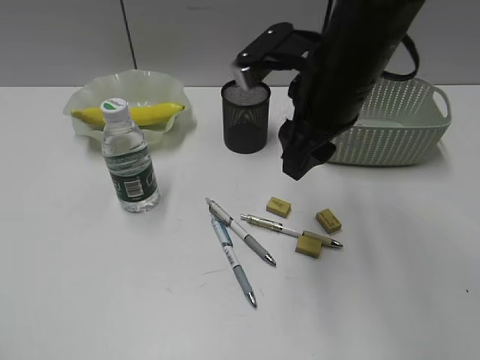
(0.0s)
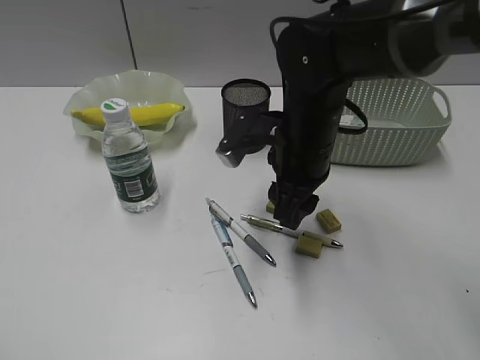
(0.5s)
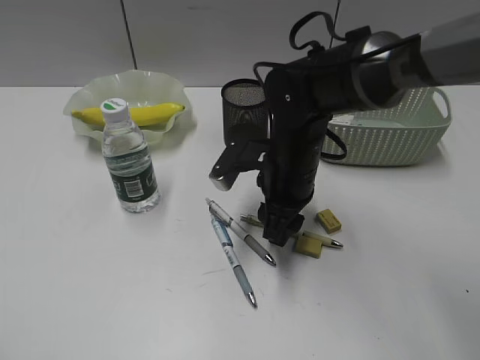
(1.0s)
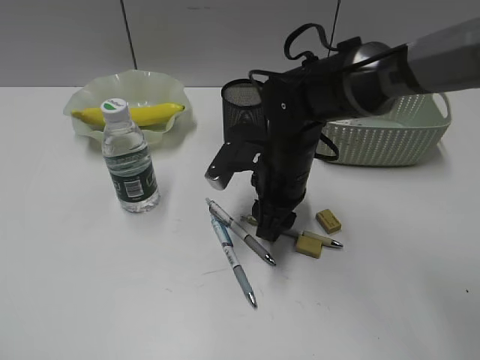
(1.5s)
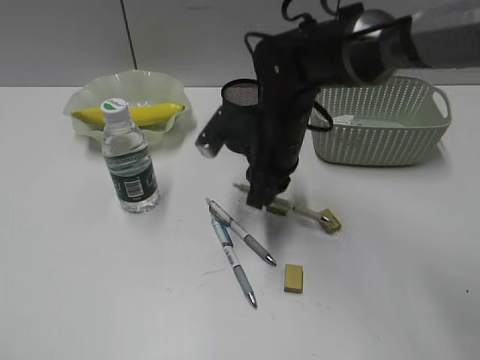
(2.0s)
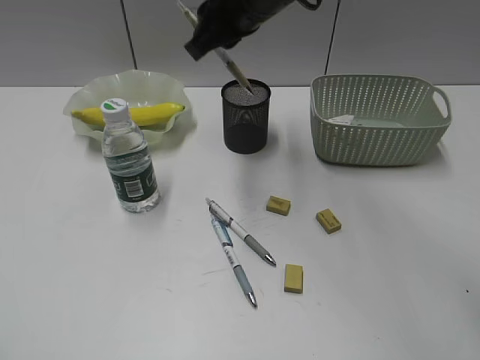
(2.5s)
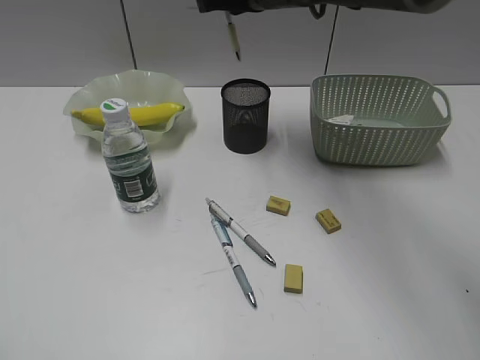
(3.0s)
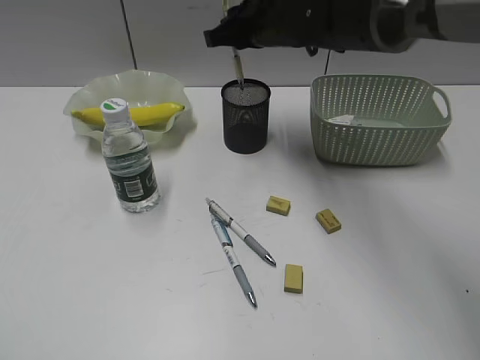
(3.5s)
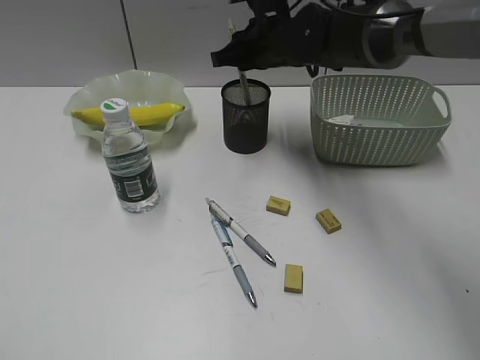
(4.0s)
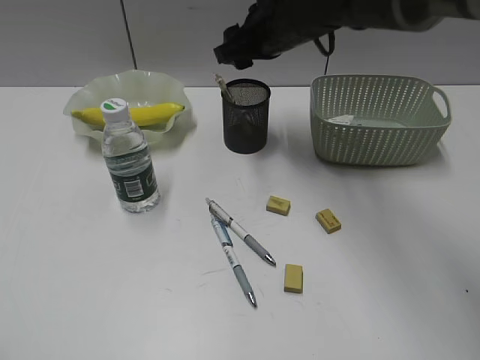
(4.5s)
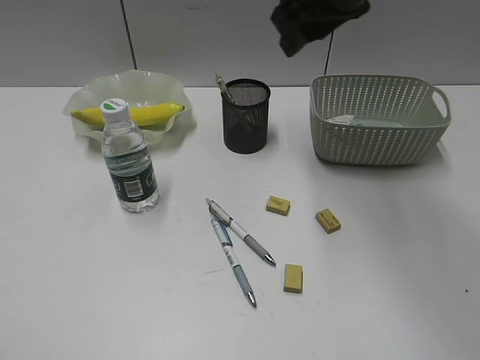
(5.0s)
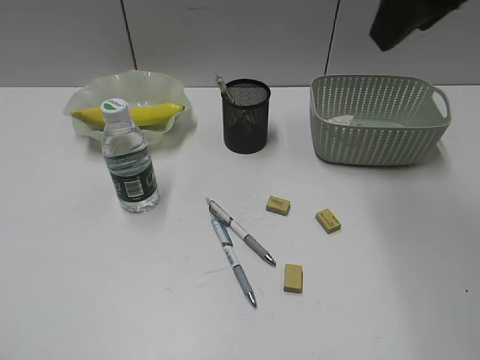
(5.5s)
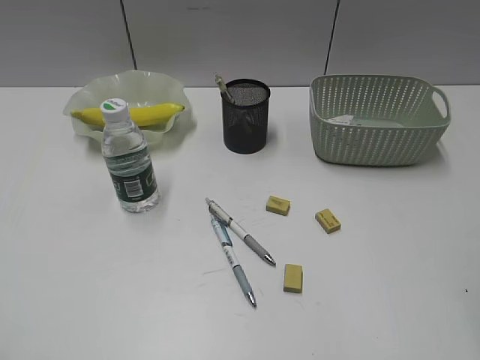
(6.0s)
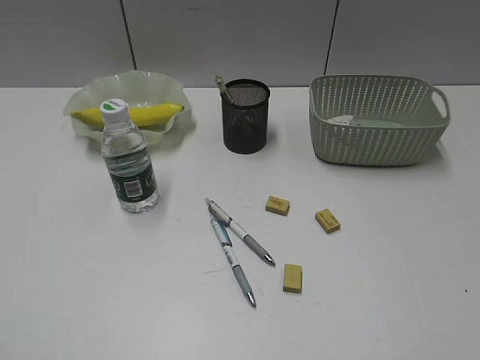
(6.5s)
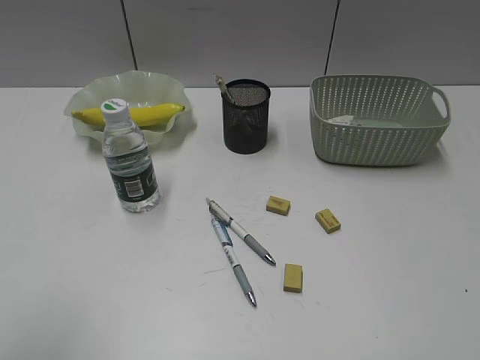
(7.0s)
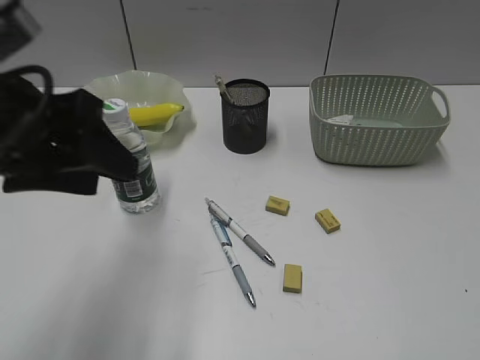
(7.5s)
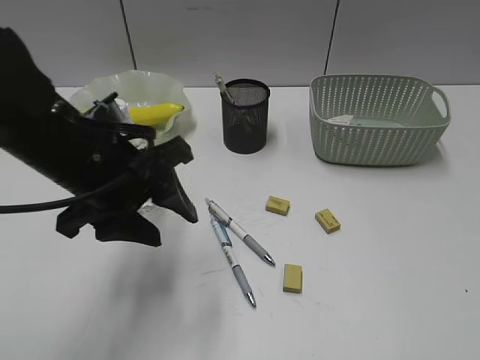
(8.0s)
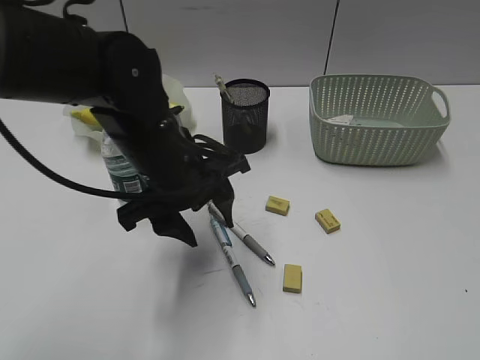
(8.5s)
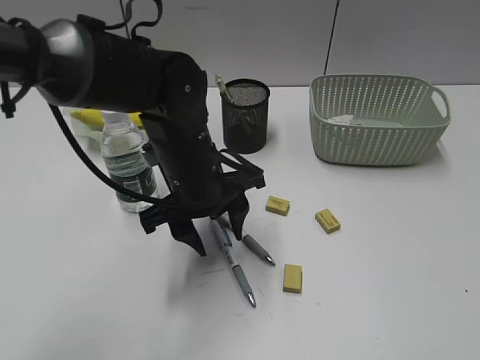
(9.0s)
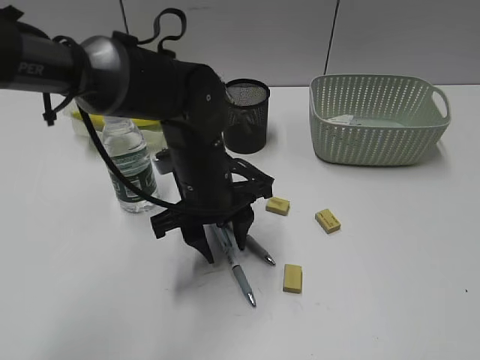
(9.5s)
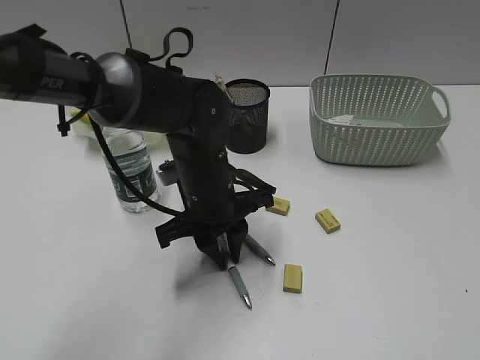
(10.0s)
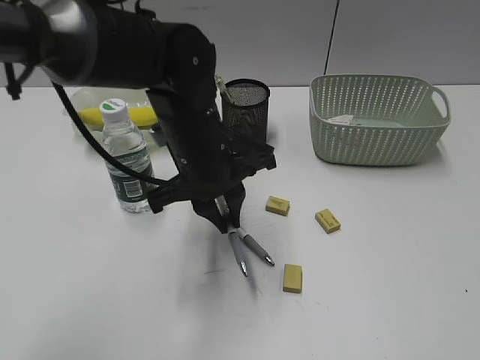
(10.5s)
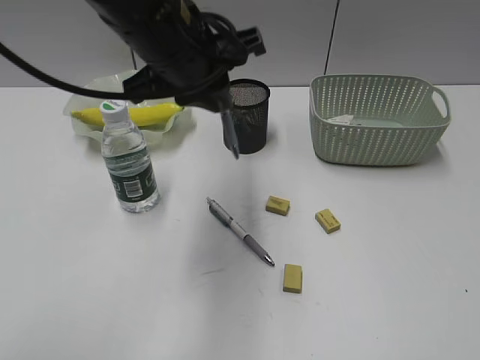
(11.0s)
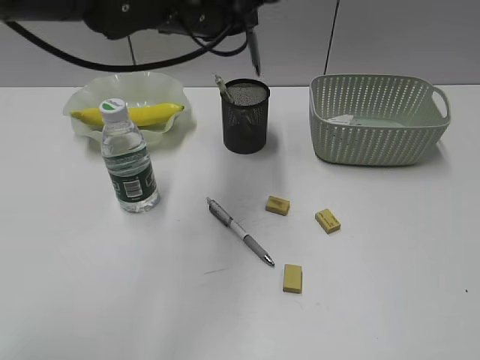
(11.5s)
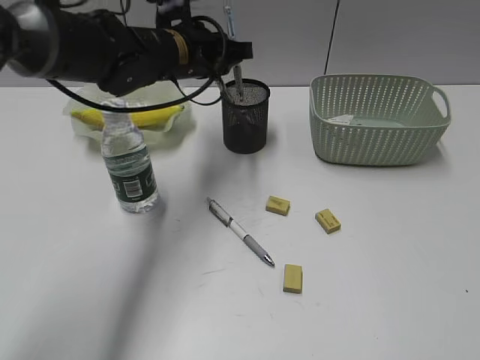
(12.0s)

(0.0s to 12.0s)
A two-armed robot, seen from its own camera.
Step, 2.0s - 4.0s: Place the yellow pen in pen holder with right gripper.
Step, 4.5s - 10.0s: Grasp the blue pen with left gripper.
0.0s - 2.0s: The right gripper goes some 10 cm downward, and closes up.
2.0s - 4.0s: The right gripper goes about 15 cm forward and upward.
4.0s - 6.0s: The right gripper heads backward, to the right and upward, covering roughly 40 cm, and opens.
6.0s - 8.0s: The left gripper goes roughly 30 cm forward and to the right. The right gripper is displaced backward, downward and to the right by about 15 cm.
8.0s - 10.0s: The left gripper heads to the right, downward and forward, covering some 15 cm, and closes up.
10.0s - 12.0s: The left gripper moves forward and upward, roughly 15 cm.

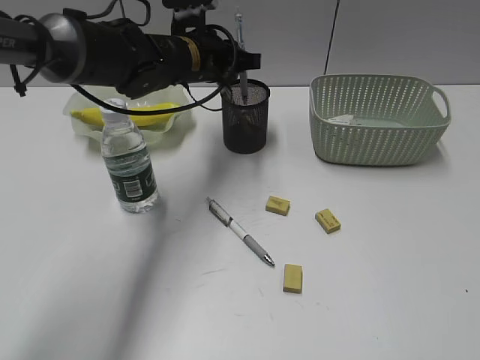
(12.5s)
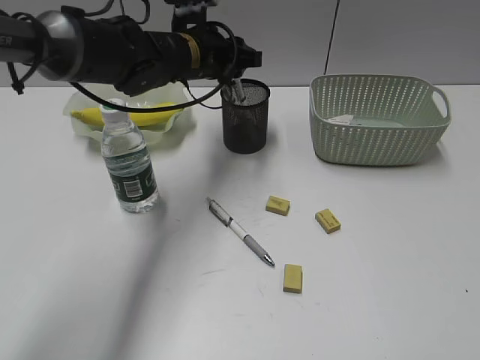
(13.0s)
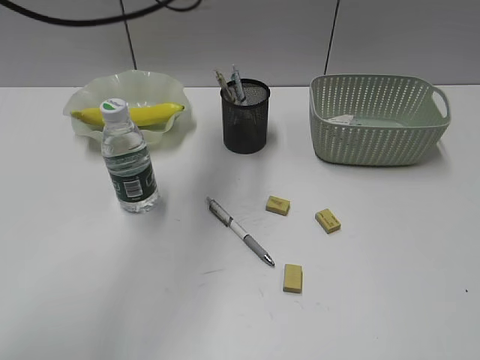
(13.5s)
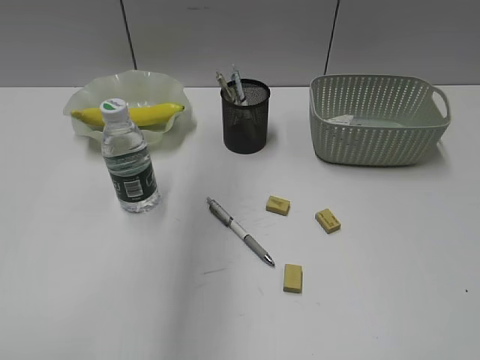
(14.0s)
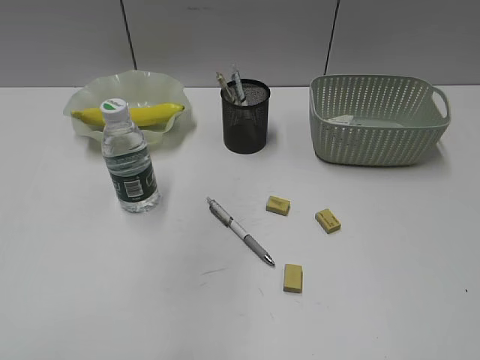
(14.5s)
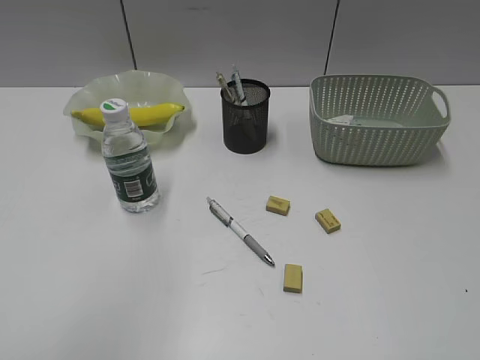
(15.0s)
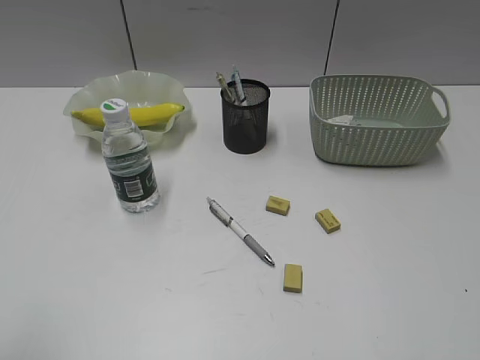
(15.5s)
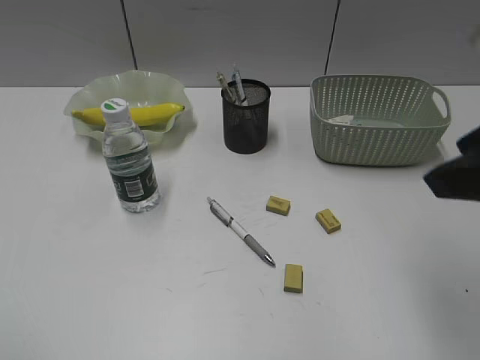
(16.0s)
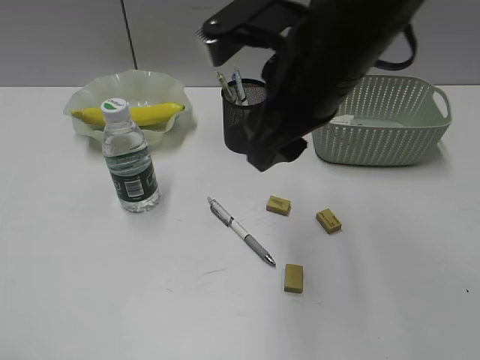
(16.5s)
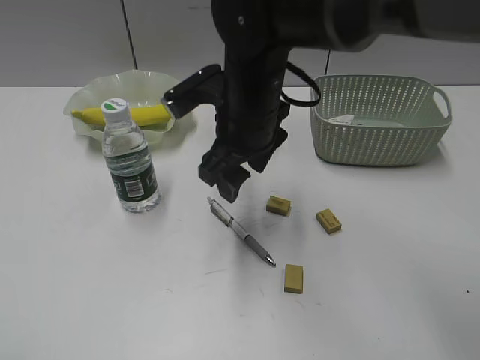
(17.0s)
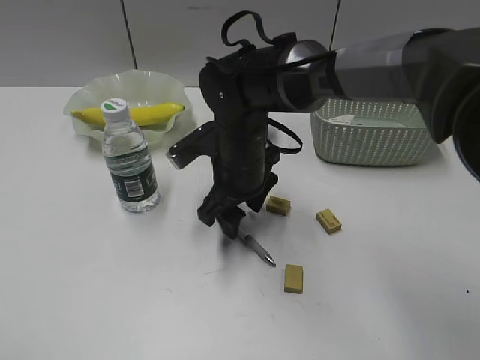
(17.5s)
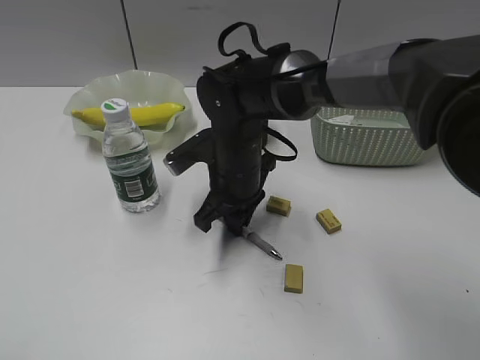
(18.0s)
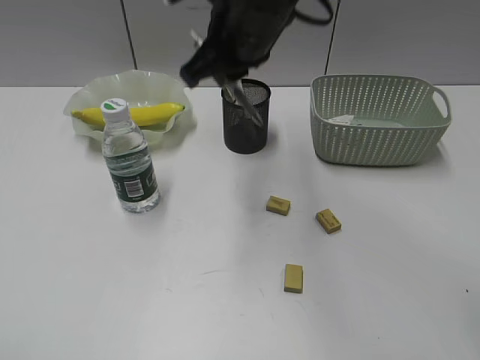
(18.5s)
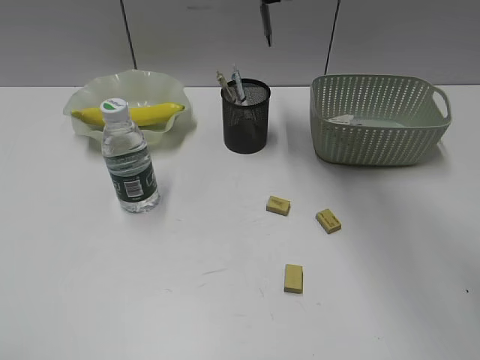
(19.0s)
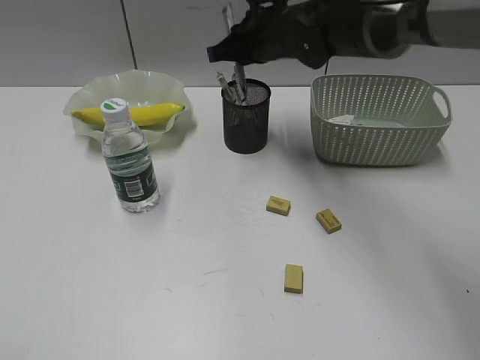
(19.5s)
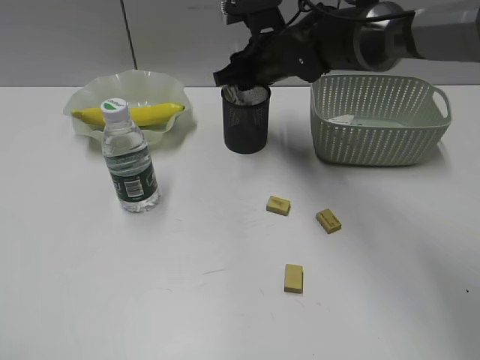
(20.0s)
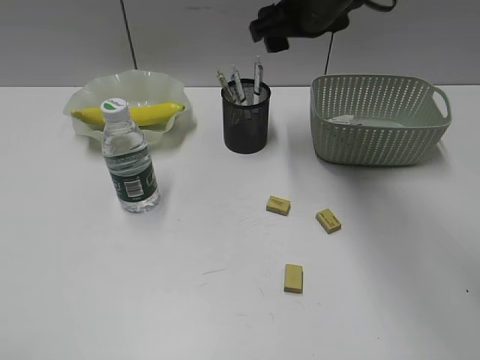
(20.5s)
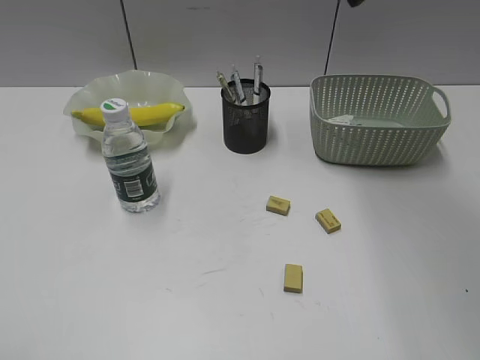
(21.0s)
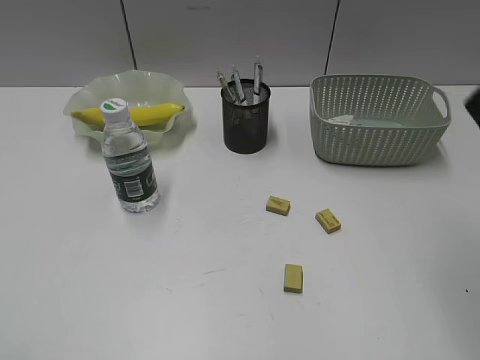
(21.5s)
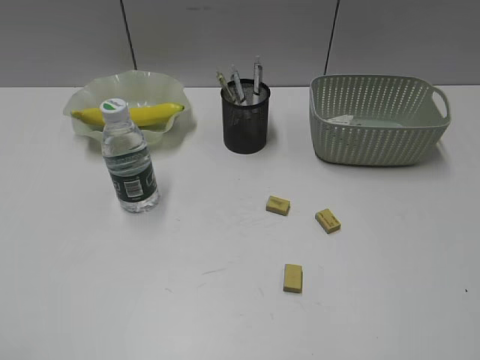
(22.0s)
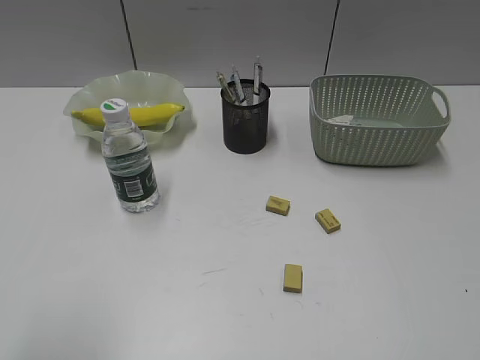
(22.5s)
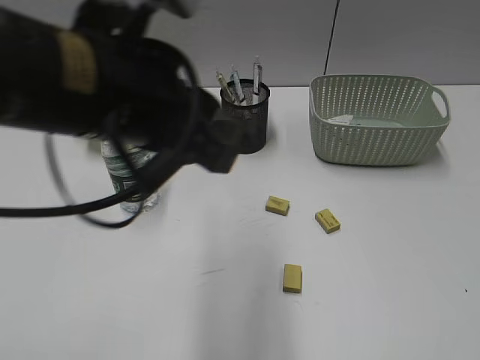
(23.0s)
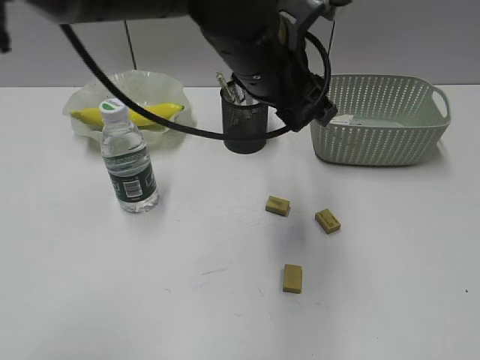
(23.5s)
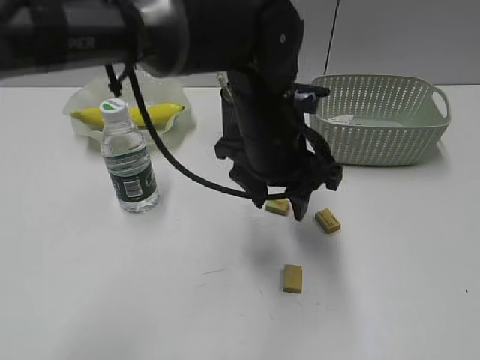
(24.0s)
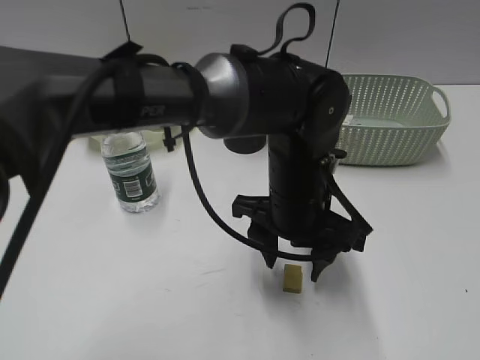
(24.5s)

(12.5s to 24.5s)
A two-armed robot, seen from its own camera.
Step, 13.0s - 18.0s: Grasp the gray pen with right gripper.
Step, 18.5s - 20.0s: Place the gray pen in pen holder with right gripper.
12.5s - 14.5s: The left gripper heads upward and backward, covering roughly 35 cm.
14.5s - 16.5s: The left gripper moves to the left, backward and downward, about 30 cm. The right gripper heads forward and to the left, covering some 35 cm.
16.5s - 18.5s: The right gripper goes some 10 cm forward and to the left, goes downward and returns, approximately 20 cm each way, and closes up.
18.5s - 20.5s: The right gripper swings up and down, about 15 cm each way, with 2 reversals, and opens up.
20.5s - 22.5s: The left gripper is displaced to the right by about 5 cm. The right gripper is displaced backward and to the right by about 50 cm.
22.5s - 24.5s: The left gripper heads to the right, forward and downward, covering roughly 40 cm, and opens up.

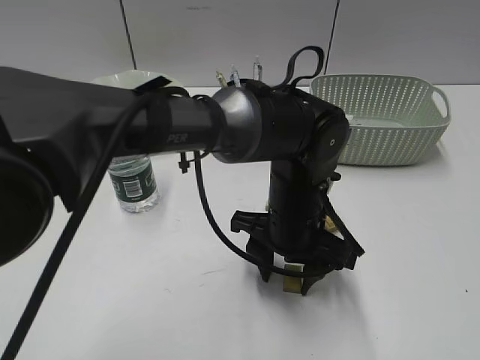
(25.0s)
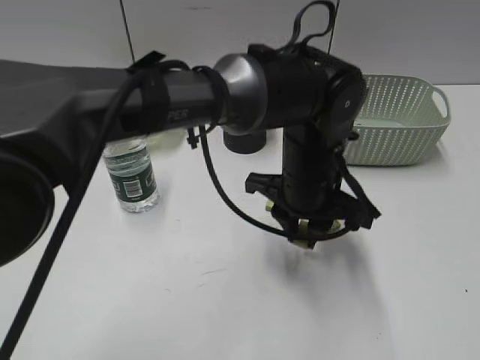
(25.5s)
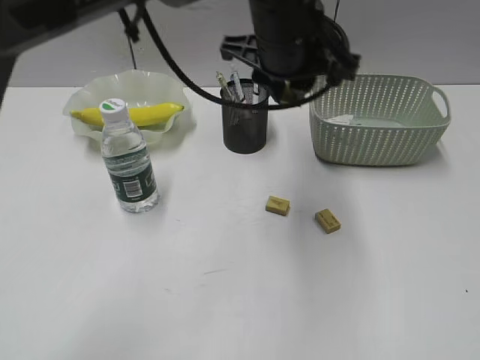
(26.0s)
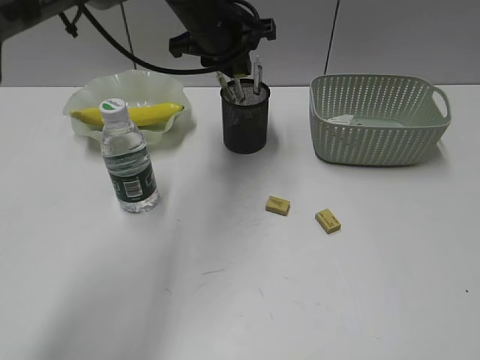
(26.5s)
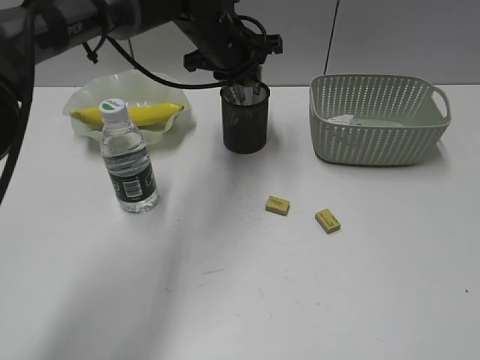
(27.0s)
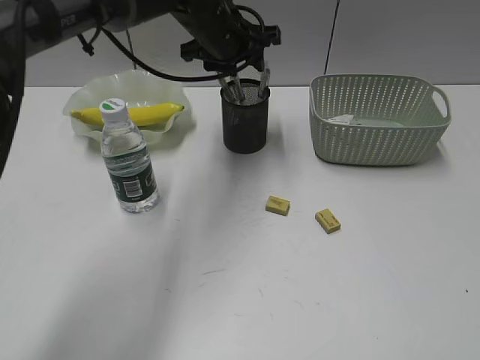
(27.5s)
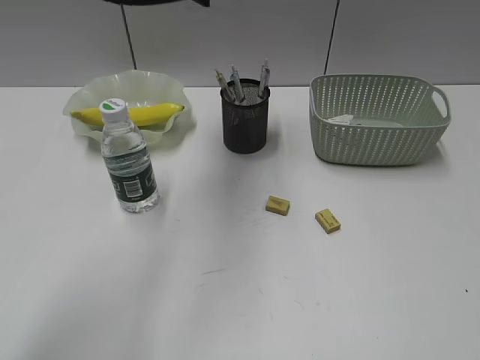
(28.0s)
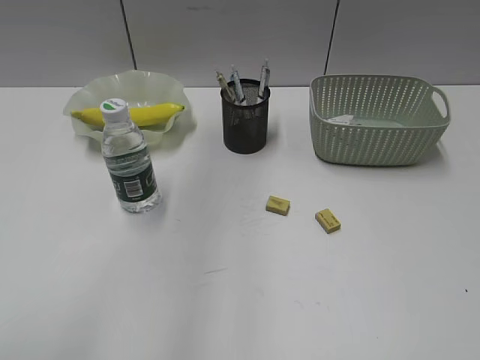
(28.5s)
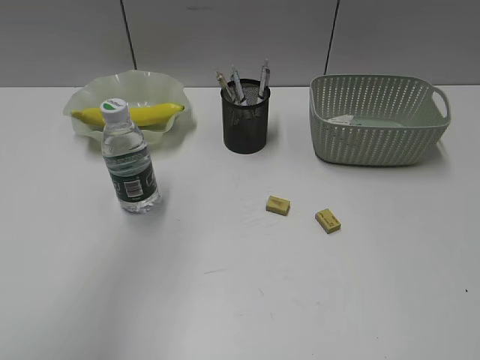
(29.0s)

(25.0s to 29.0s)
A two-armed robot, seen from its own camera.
Step, 25.5s - 27.0s: Place the eraser in pen holder with left gripper.
25.0s - 27.0s: The left gripper heads forward, upward and to the left, covering some 25 cm, and closes.
27.0s - 29.0s: The left gripper moves backward, upward and to the left, some 40 cm, and opens.
